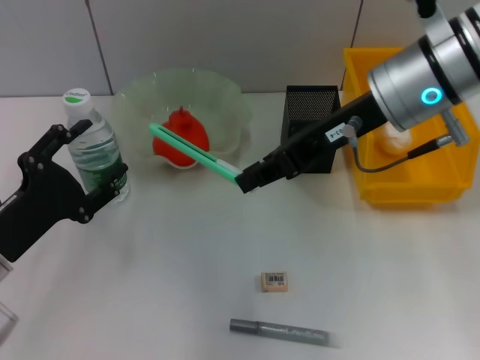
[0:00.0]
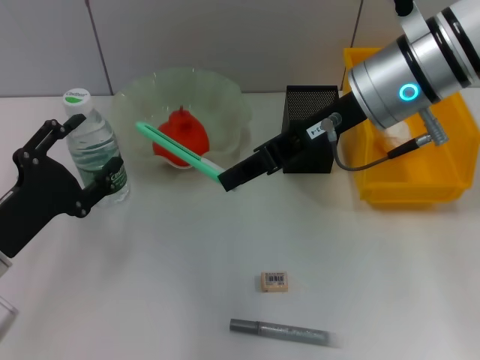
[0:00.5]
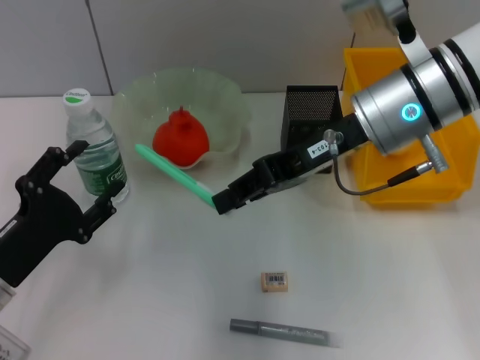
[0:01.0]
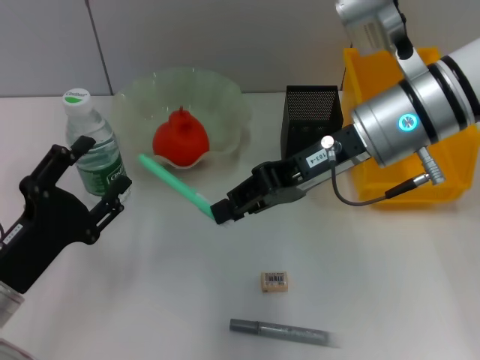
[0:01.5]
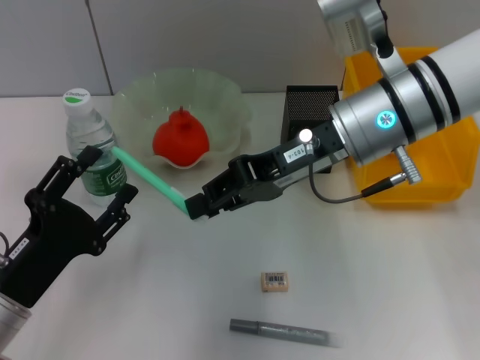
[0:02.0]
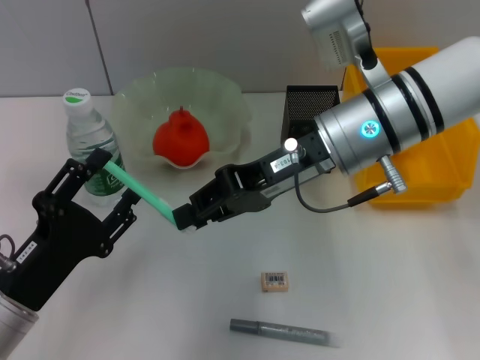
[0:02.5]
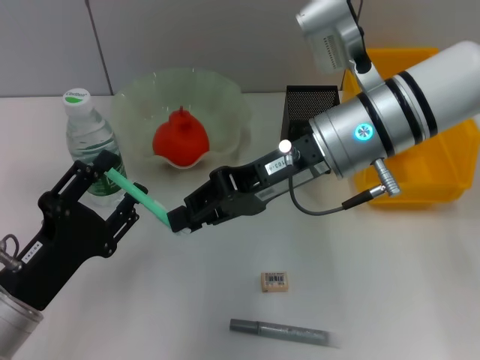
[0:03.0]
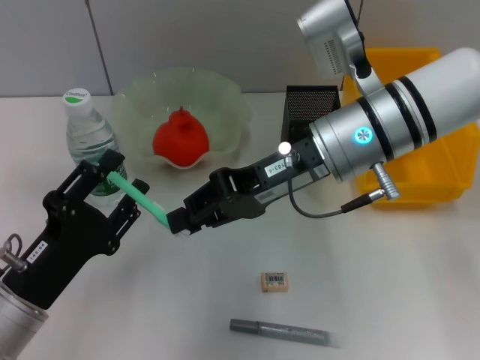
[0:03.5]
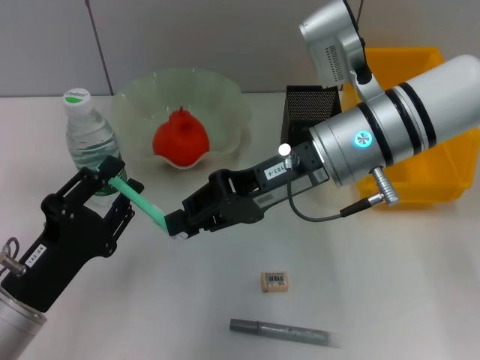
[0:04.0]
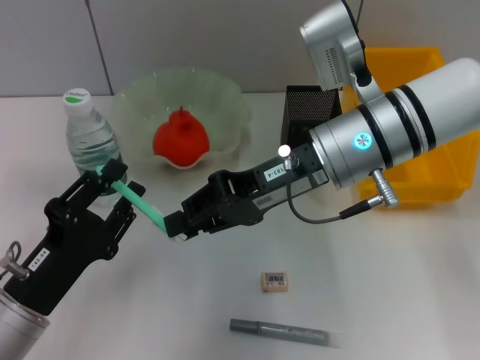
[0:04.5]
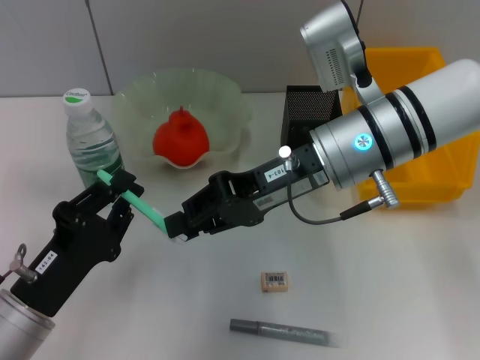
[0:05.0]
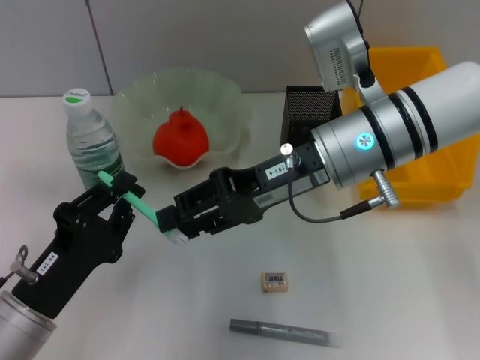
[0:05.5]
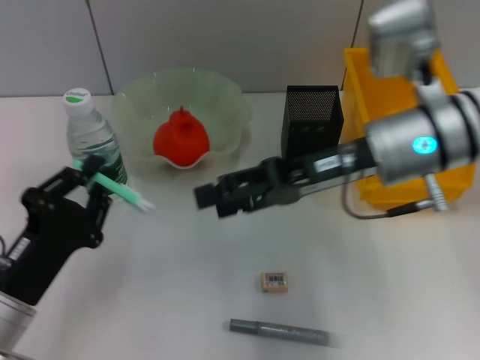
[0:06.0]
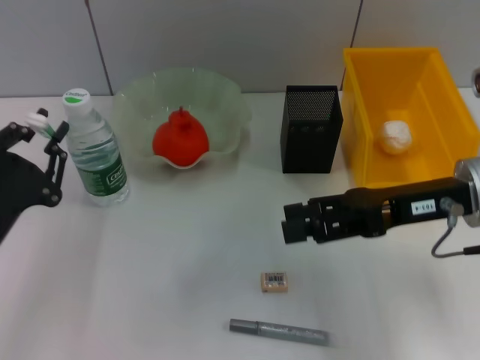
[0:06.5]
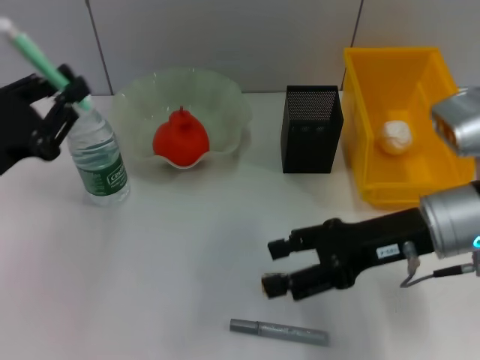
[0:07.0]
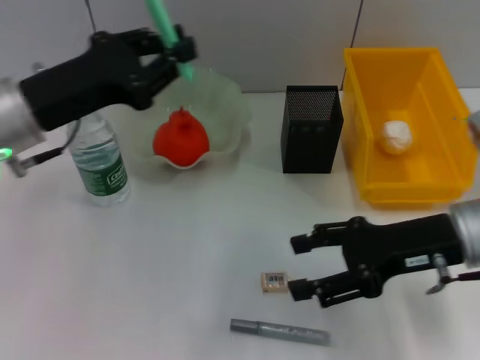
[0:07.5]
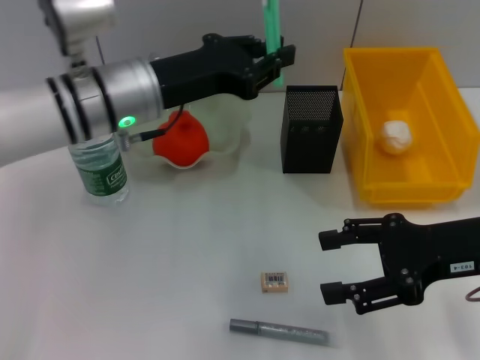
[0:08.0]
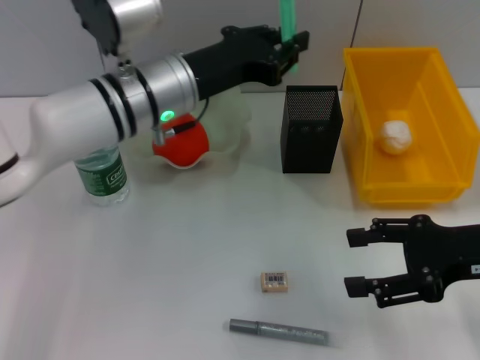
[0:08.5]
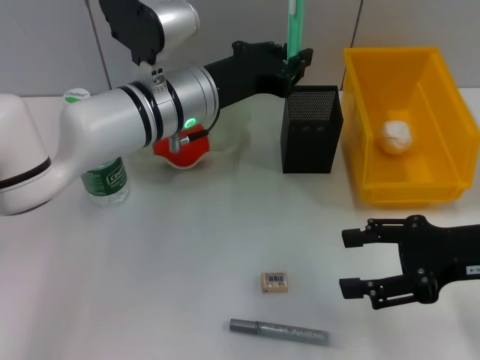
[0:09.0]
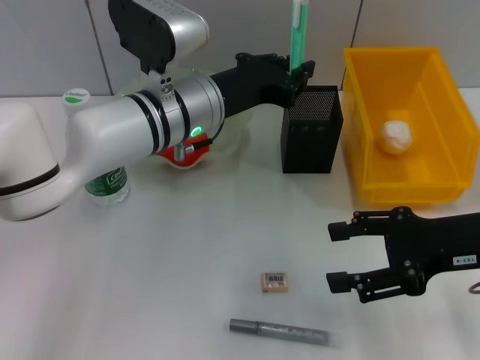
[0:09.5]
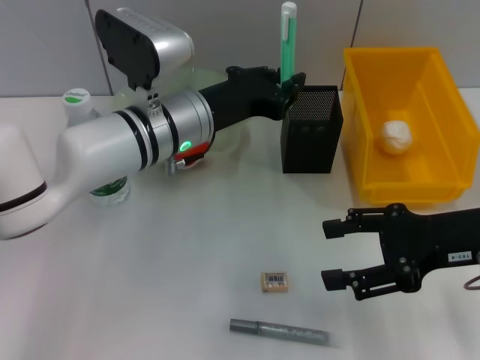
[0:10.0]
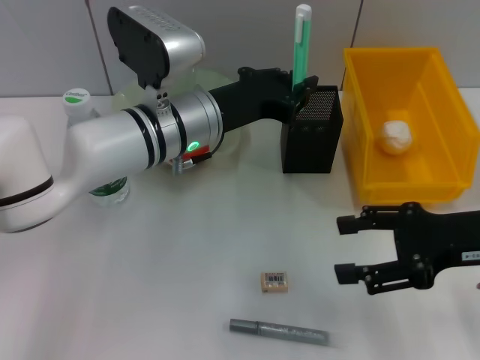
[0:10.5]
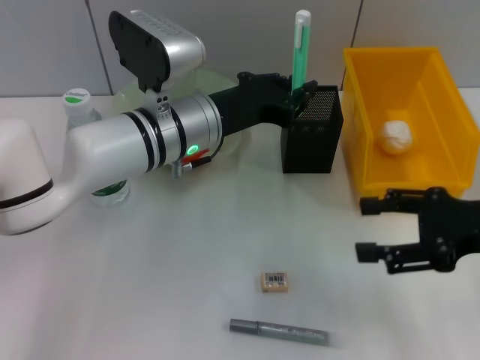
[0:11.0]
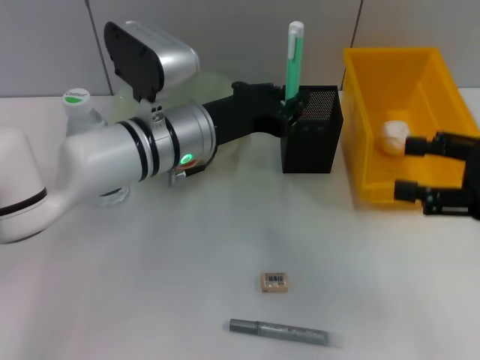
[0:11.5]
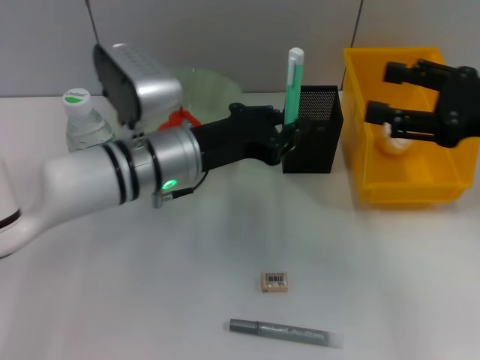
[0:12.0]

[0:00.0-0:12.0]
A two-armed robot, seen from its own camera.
Step, 0:00.0 to 0:06.0: Pass the blue utility knife from the right hand to the left hand.
0:00.0 to 0:02.0: The left gripper changes place by approximately 5 cm.
0:02.0 to 0:04.0: The left gripper closes up.
0:04.0 to 0:06.0: The left gripper closes. The right gripper opens.
0:06.0 to 0:08.0: The right gripper moves to the right and backward, some 10 cm. The left gripper goes roughly 25 cm forward, upward and to the right.
0:08.0 to 0:10.0: The left gripper changes place by roughly 5 cm.
0:10.0 to 0:12.0: The right gripper changes place by approximately 5 cm.

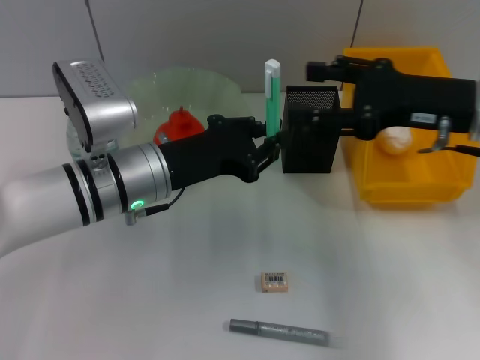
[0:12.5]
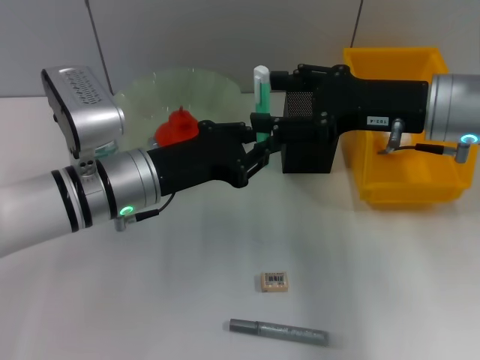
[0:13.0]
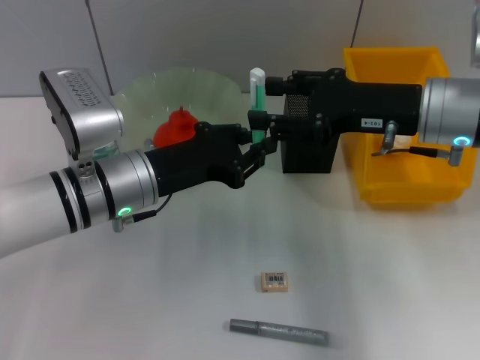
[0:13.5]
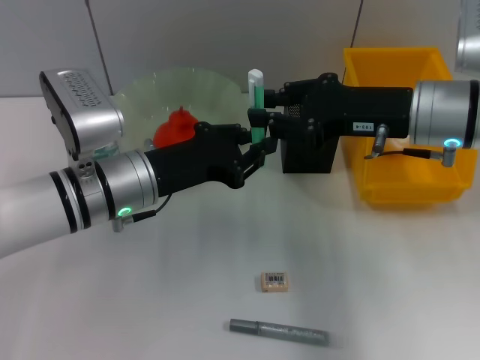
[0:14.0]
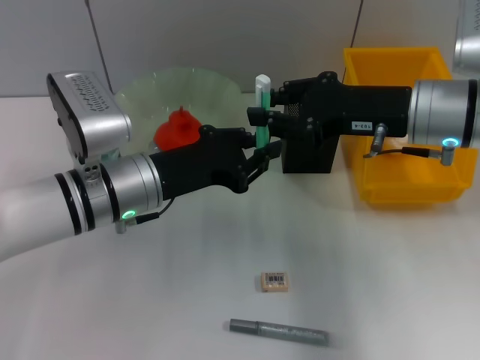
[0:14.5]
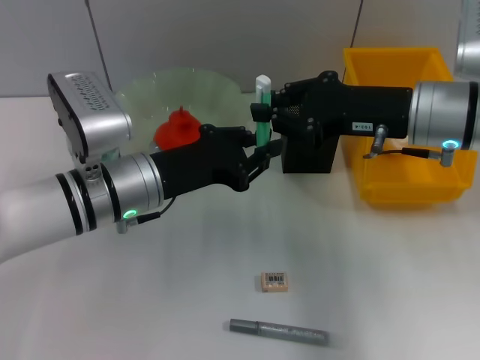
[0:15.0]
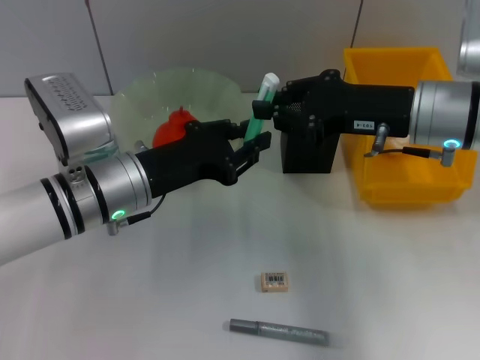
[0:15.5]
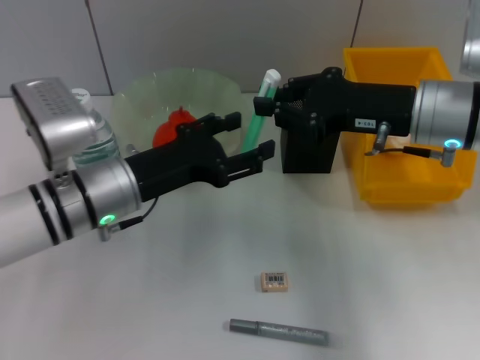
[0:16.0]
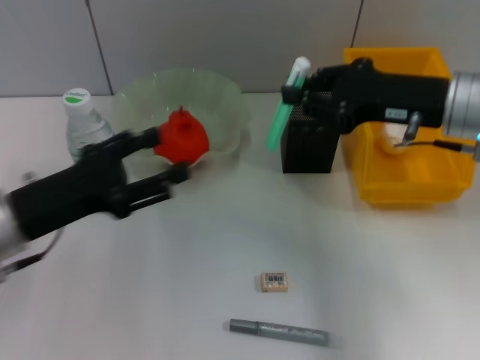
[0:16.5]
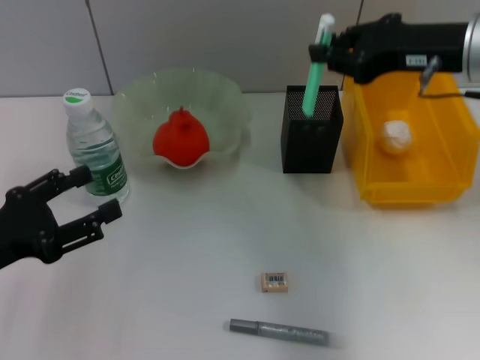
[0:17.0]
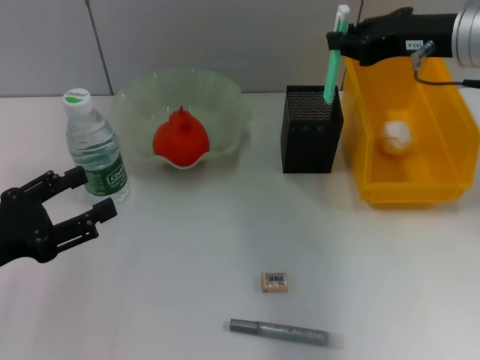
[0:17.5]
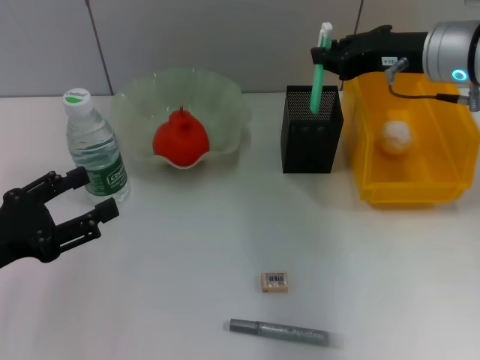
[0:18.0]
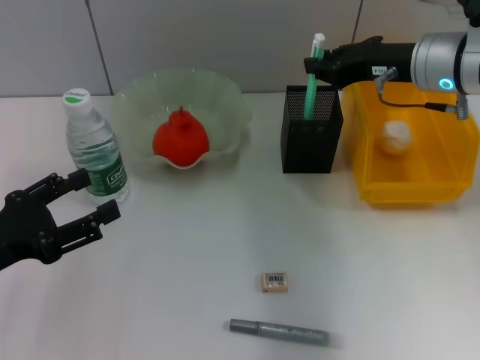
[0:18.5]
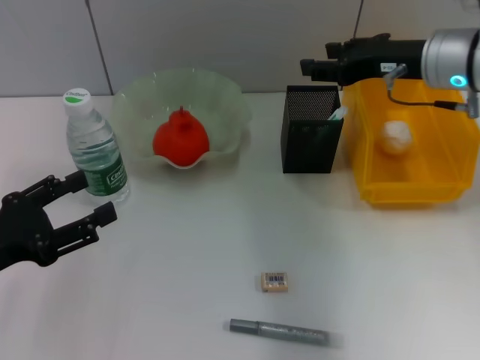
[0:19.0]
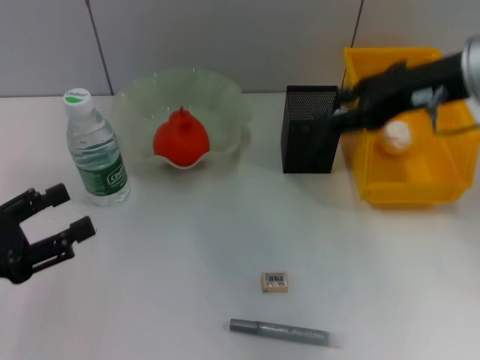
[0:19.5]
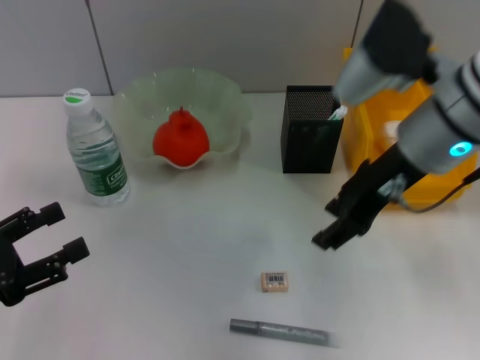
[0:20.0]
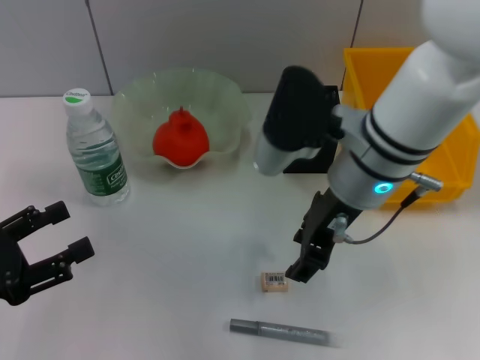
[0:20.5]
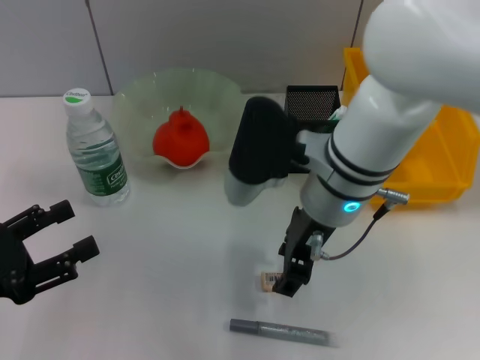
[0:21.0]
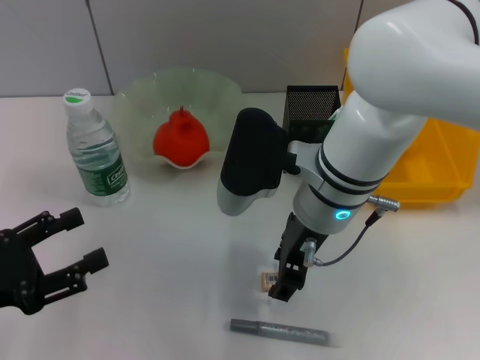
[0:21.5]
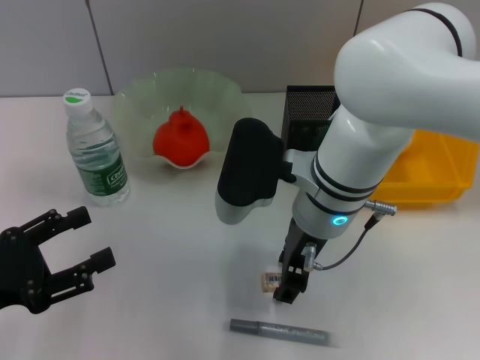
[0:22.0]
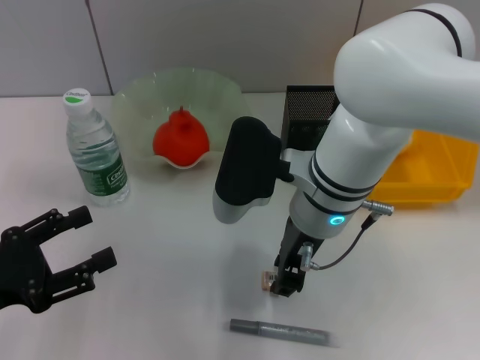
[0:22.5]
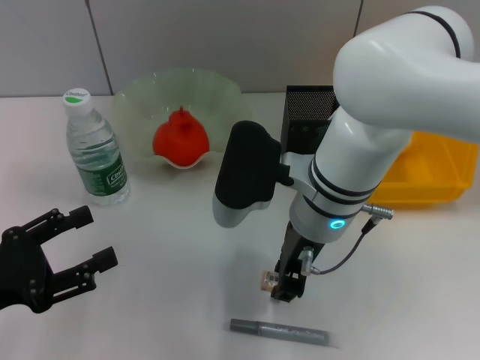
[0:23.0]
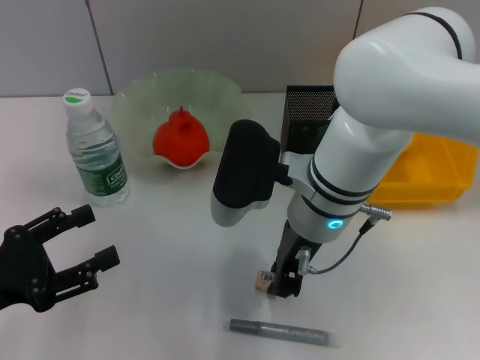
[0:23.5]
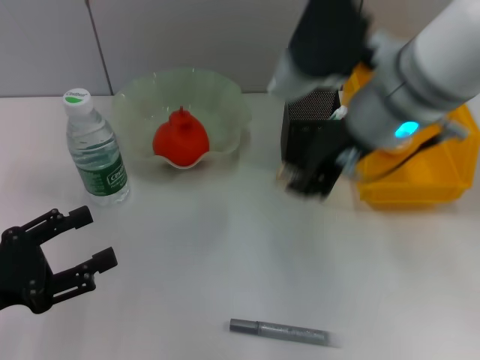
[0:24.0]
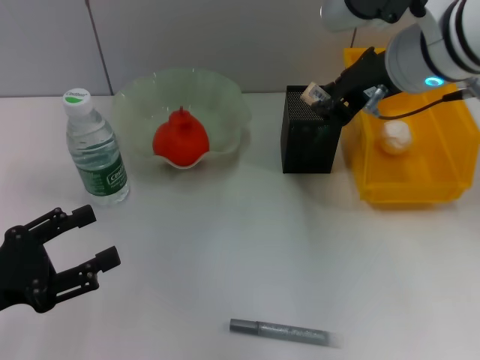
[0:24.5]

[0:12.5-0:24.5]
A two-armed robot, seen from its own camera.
Step, 0:12.5 to 0:16.0: Pass the blue utility knife from the left hand to the right hand.
Step, 0:16.5 to 0:18.5: Place the blue scissors into the pen holder with the right hand.
Step, 0:19.5 to 0:23.0: Grab the eraser with the right hand.
0:12.5 to 0:14.5: The right gripper closes.
0:14.5 to 0:16.5: The left gripper is displaced to the left and backward by approximately 15 cm, and opens.
0:16.5 to 0:18.5: The left gripper shifts roughly 5 cm to the left. Meanwhile the right gripper travels forward by approximately 5 cm.
0:18.5 to 0:20.5: The right gripper travels to the left and backward by about 15 cm, and opens up.
0:20.5 to 0:22.5: The right gripper changes place by some 5 cm.
0:22.5 to 0:24.5: The right gripper moves upward and to the right, approximately 15 cm.

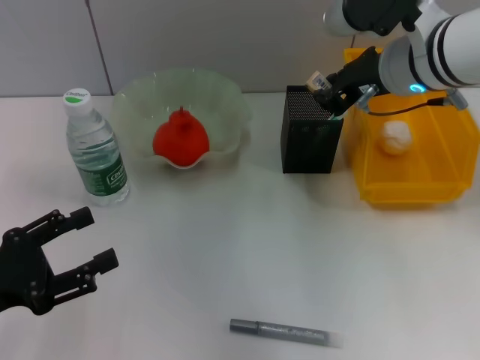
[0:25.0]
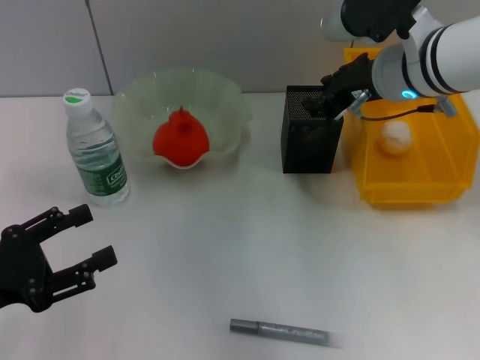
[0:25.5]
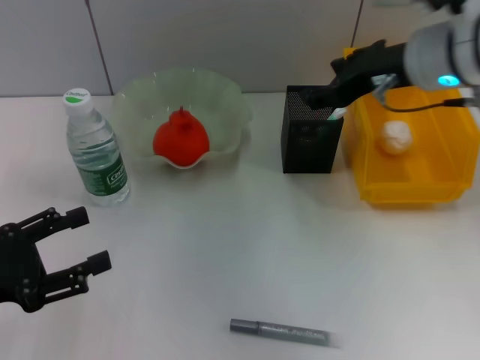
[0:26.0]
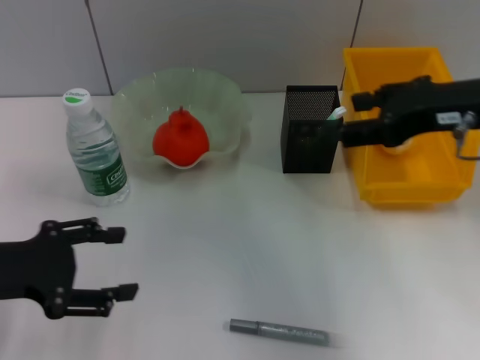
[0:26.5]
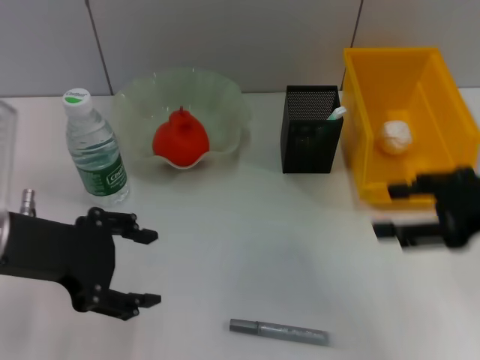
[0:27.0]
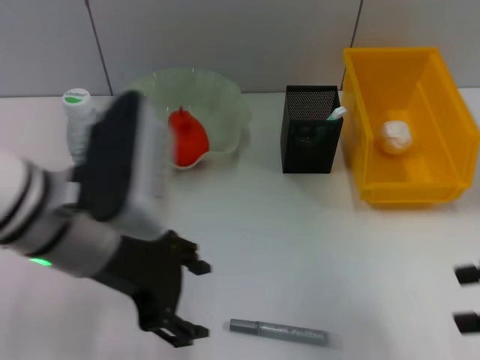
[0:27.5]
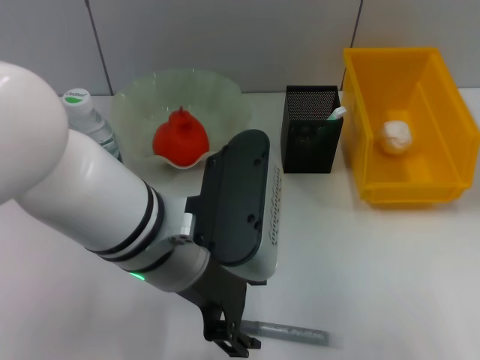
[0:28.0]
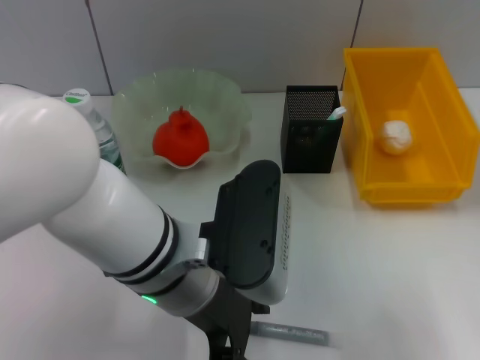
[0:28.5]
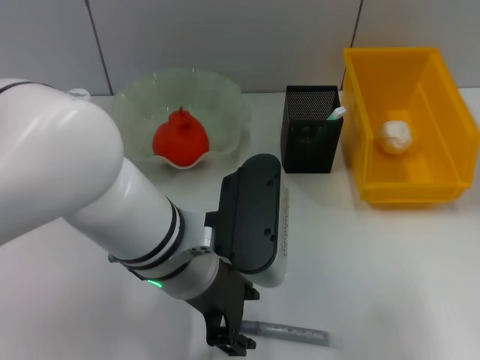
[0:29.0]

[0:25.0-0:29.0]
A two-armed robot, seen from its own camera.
0:25.0 to 0:27.0: The left gripper shifts about 15 cm upward, to the right and forward, while the right gripper goes about 20 cm backward and to the right, and opens.
0:27.0 to 0:29.0: The right gripper moves to the right, roughly 5 cm. The left gripper shifts roughly 15 cm to the right.
